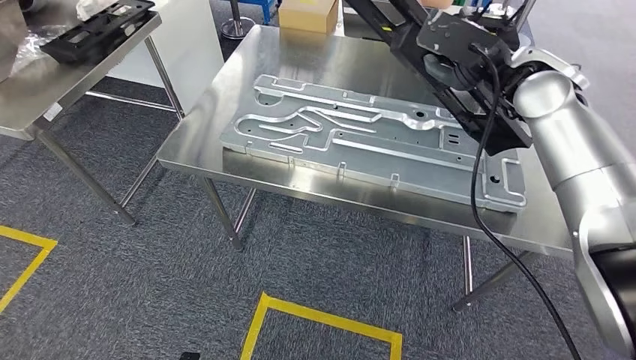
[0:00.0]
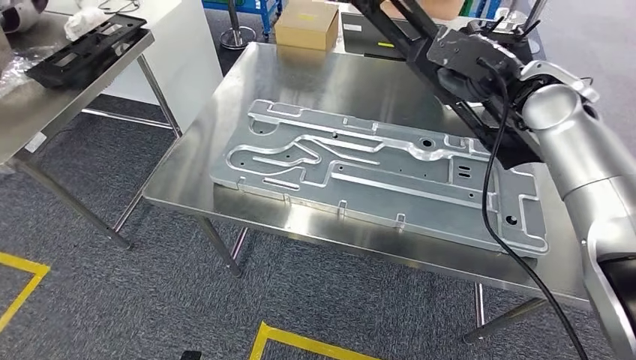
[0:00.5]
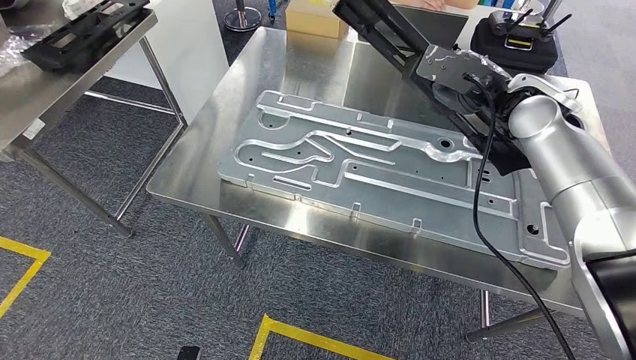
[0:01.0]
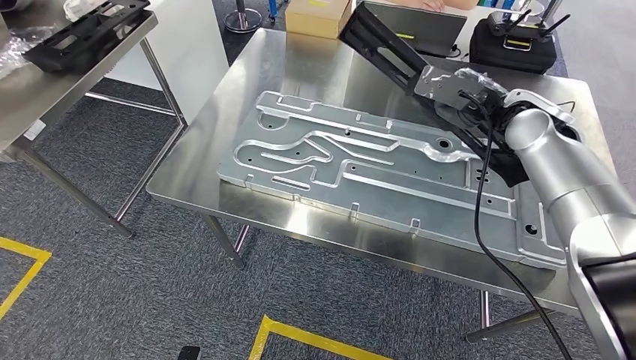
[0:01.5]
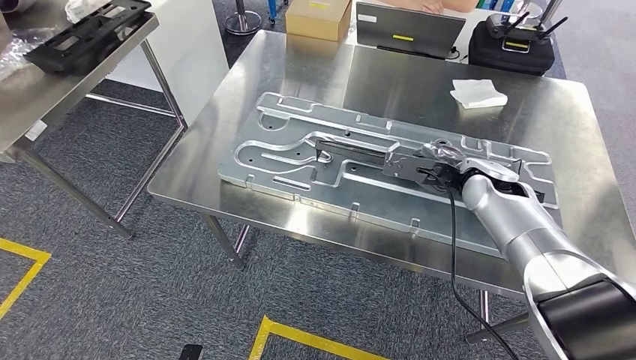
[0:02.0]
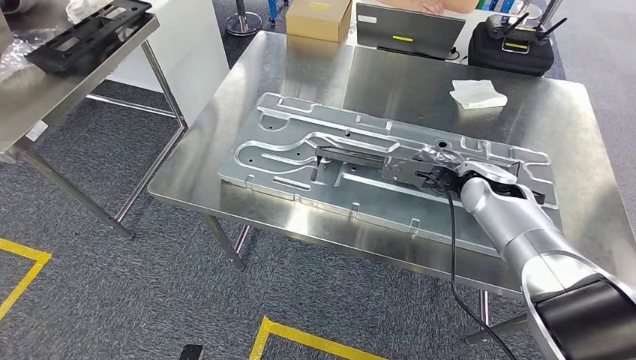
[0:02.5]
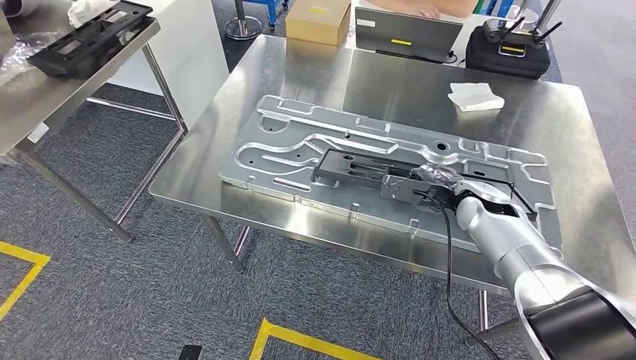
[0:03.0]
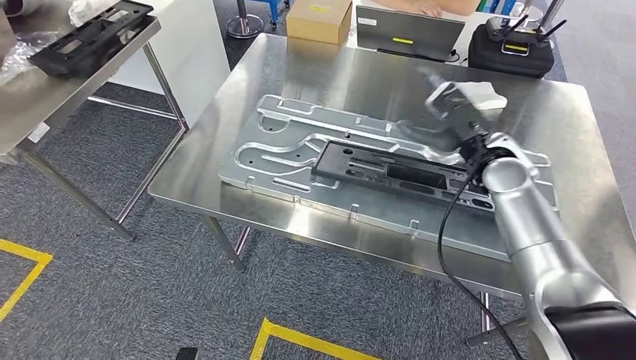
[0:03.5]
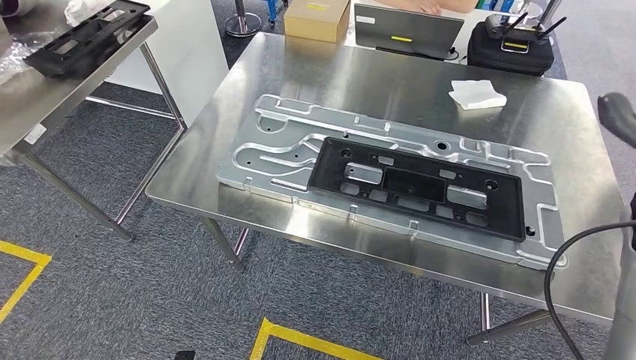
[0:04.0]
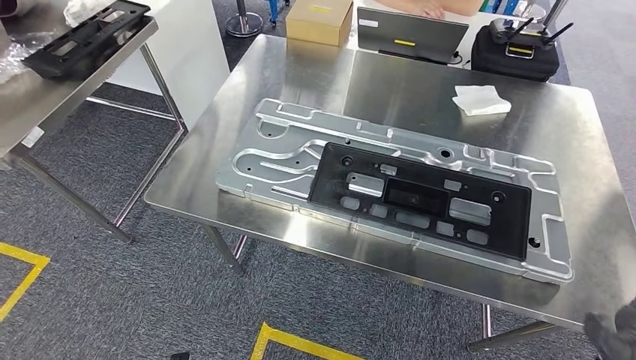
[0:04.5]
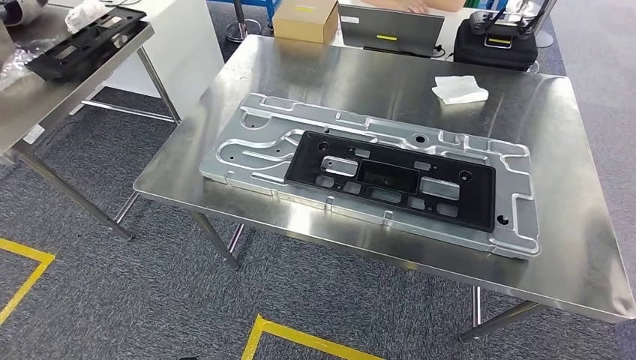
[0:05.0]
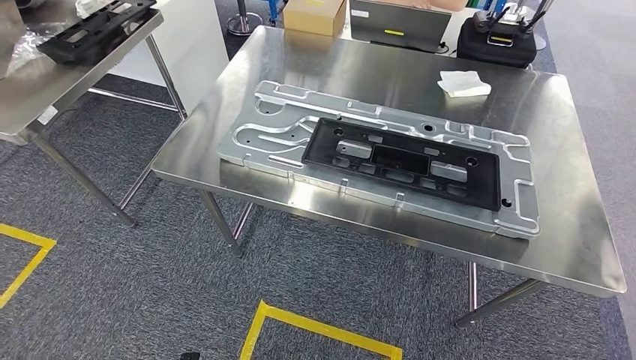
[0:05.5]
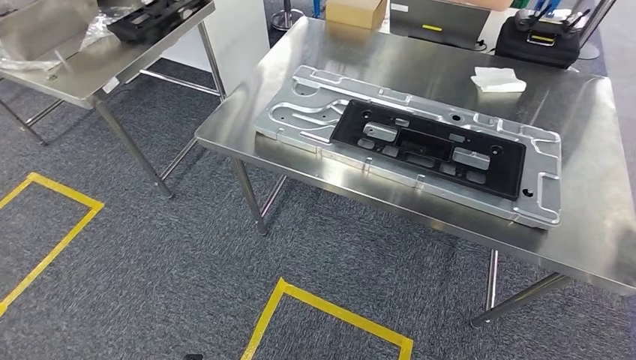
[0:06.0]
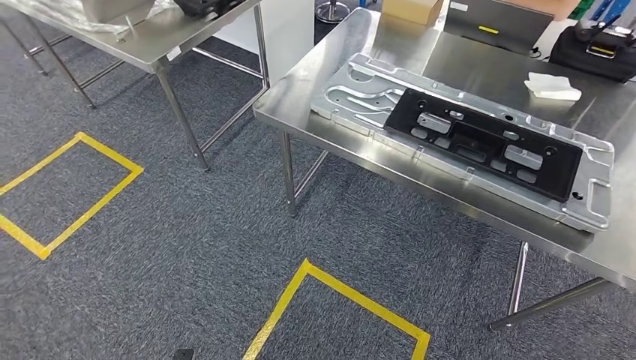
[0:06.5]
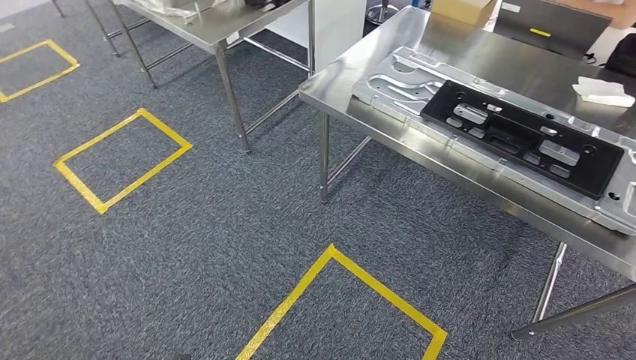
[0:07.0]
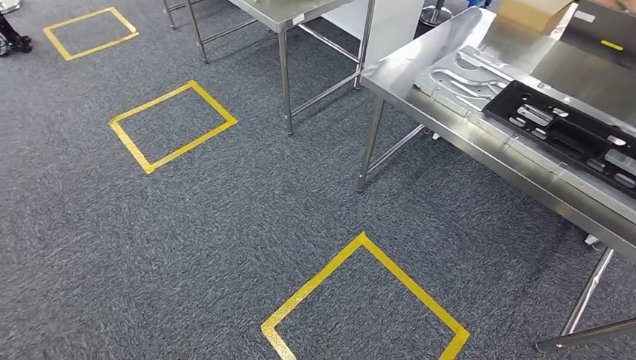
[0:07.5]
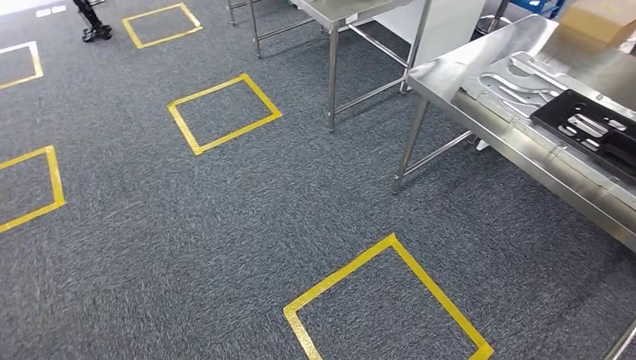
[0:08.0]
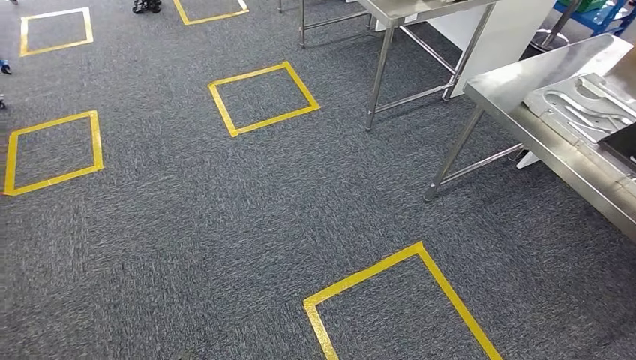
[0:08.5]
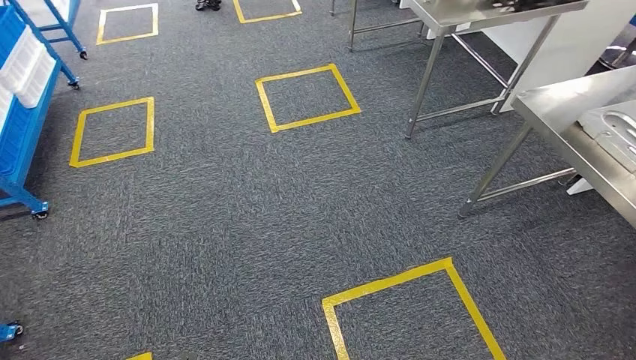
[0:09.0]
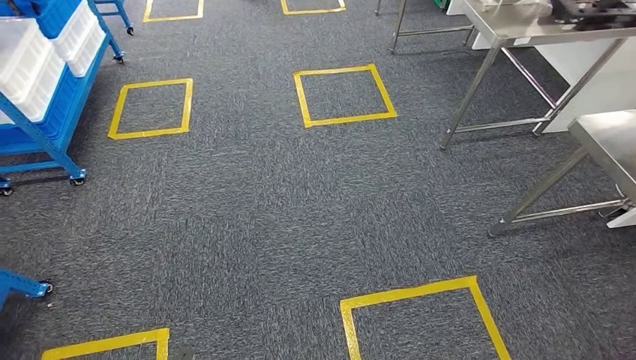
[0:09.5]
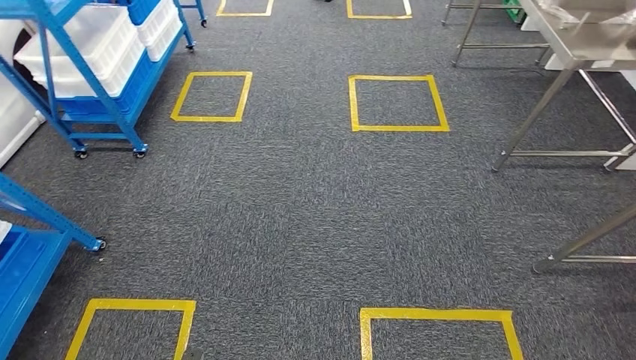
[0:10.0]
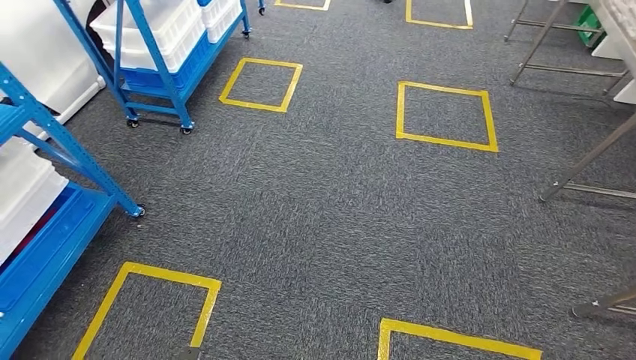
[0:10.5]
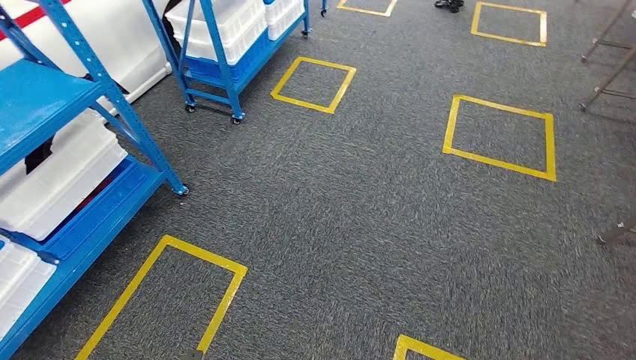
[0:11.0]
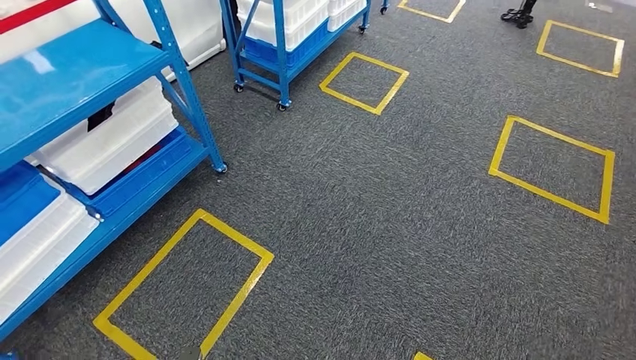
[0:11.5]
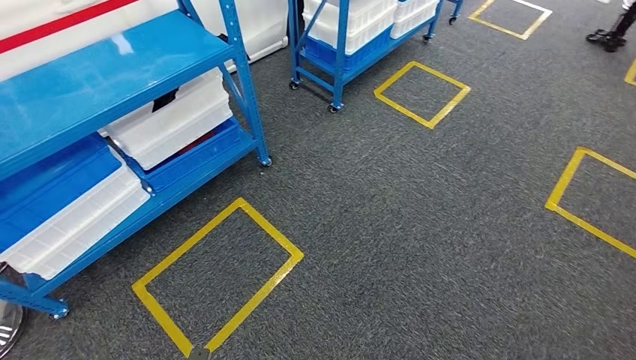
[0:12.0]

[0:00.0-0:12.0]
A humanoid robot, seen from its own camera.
Step, 0:02.0 to 0:09.0: Insert the large material into the corresponding hole on the workbench.

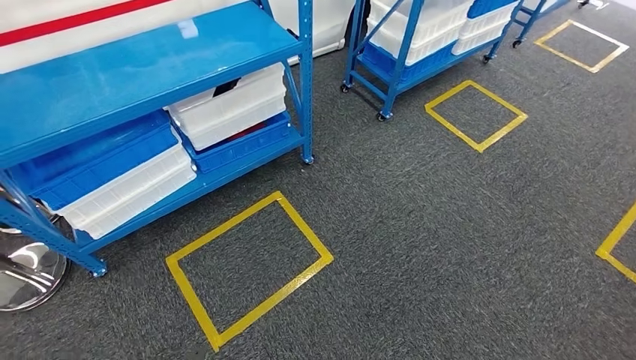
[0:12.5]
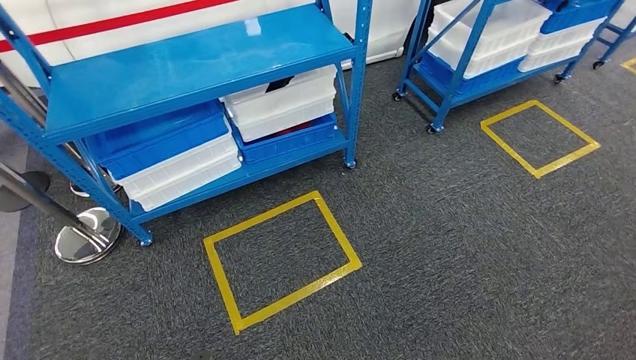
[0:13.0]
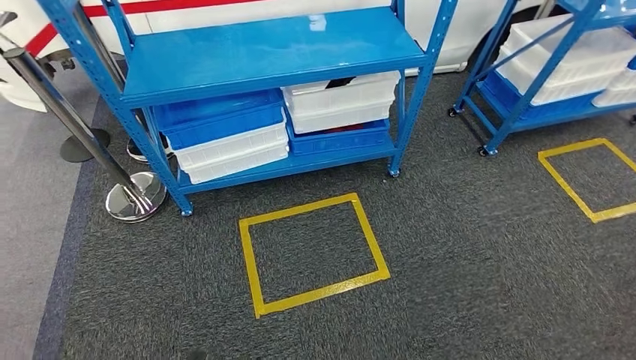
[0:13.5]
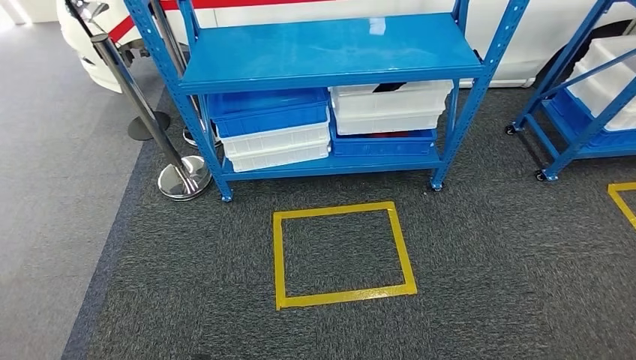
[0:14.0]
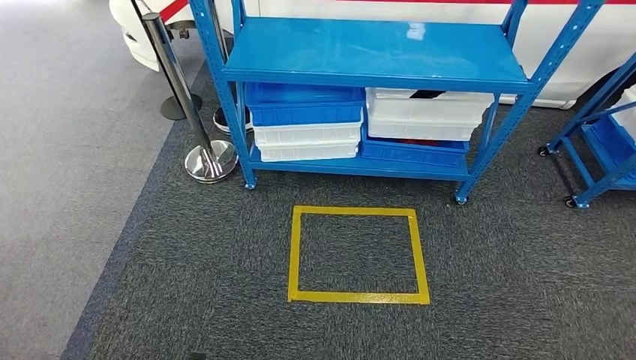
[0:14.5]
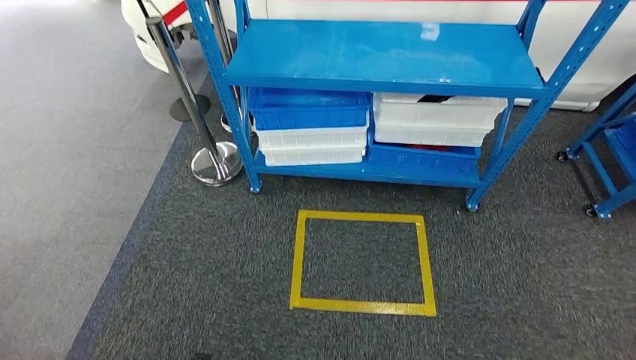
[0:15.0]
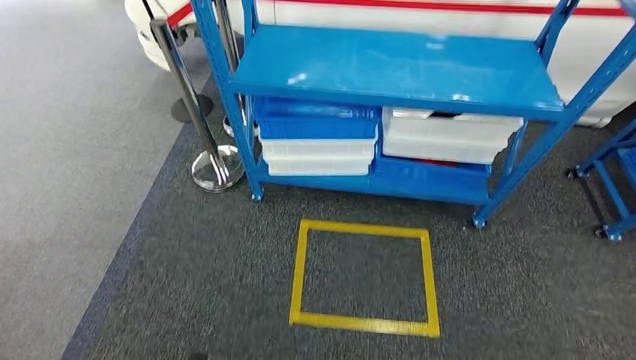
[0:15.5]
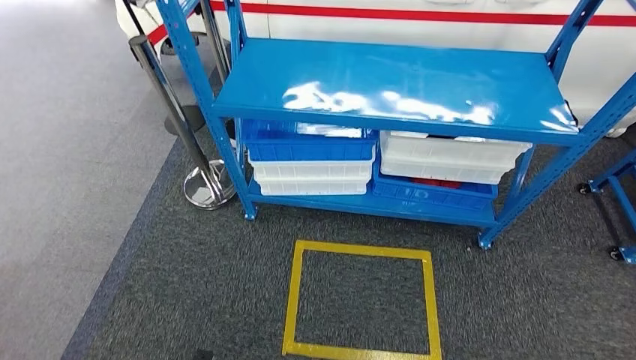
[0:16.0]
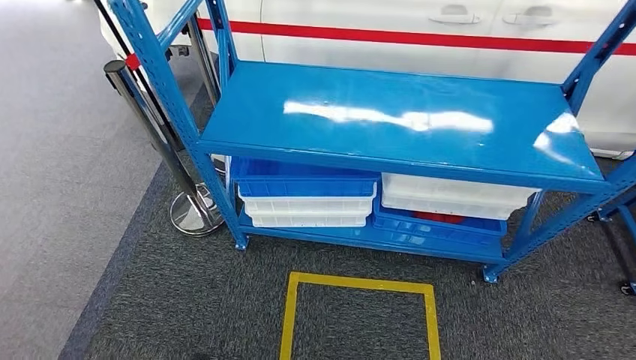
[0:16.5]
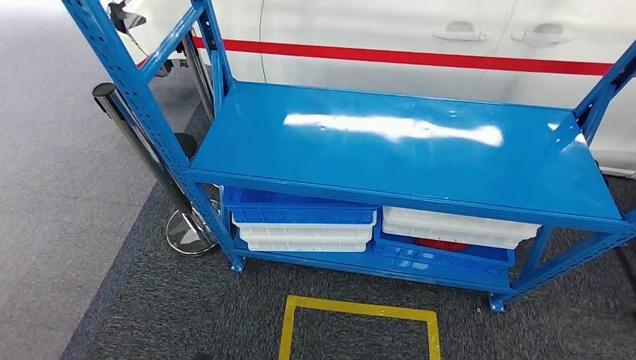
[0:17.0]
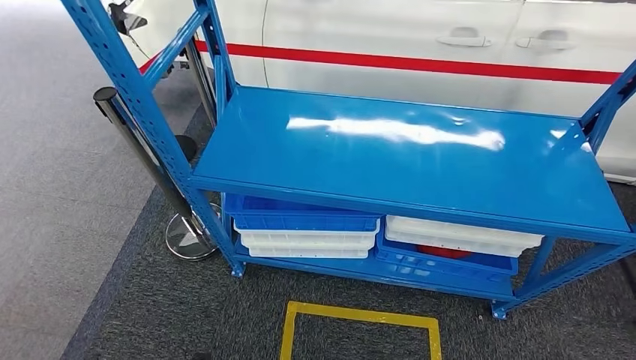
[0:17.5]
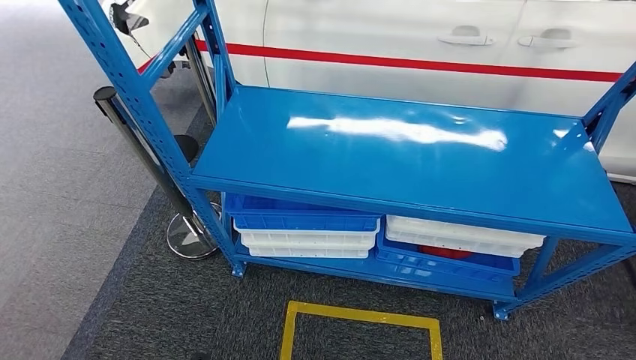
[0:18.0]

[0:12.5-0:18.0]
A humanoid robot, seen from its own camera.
Step, 0:12.5 to 0:18.0: Move to the initial position of the shelf.
